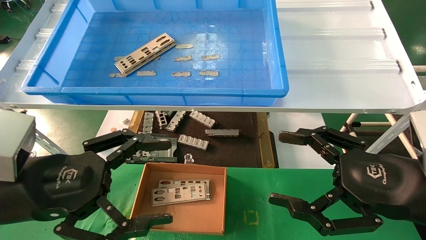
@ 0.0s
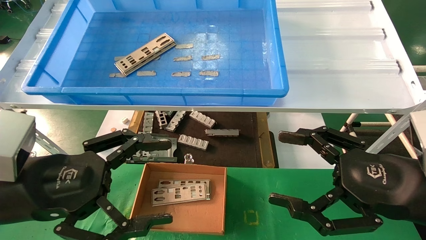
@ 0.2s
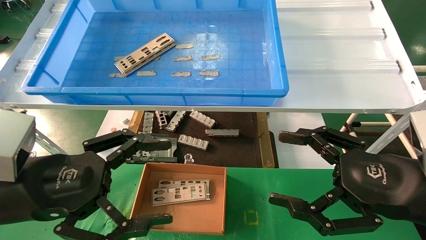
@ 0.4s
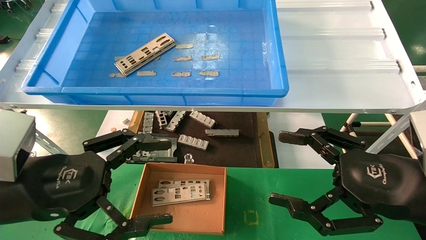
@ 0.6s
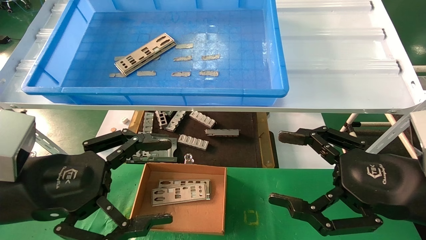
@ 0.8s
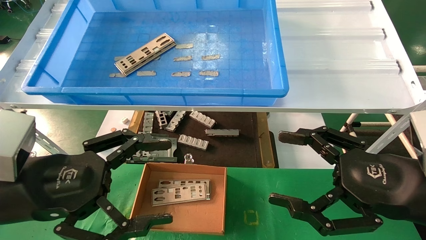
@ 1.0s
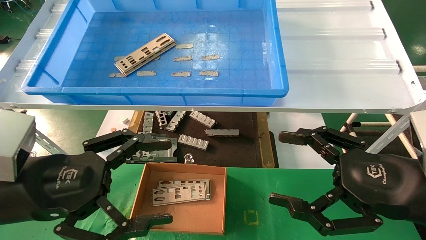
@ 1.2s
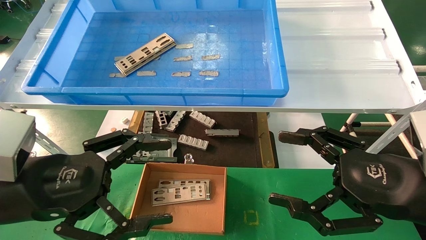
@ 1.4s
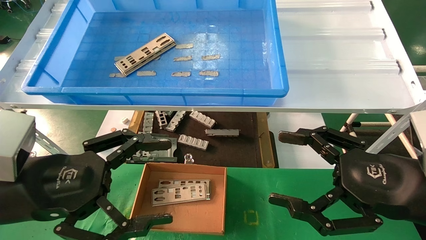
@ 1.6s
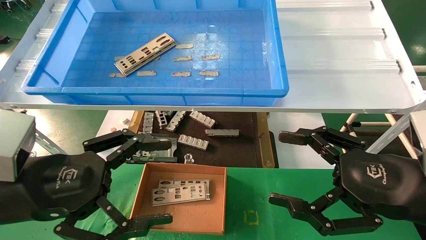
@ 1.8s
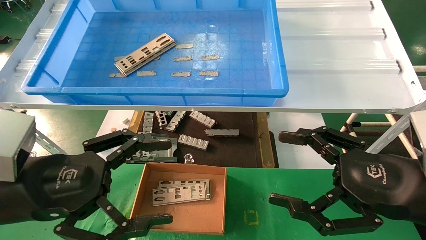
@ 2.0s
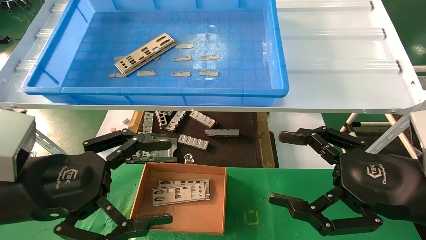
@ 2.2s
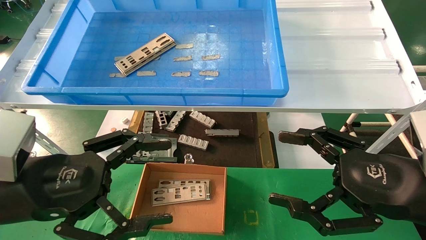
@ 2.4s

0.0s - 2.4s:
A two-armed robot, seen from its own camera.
Task of the whole recording: pick up the parts on the tray and put them in the cardboard box.
0.0s - 2.4s: Neither gripper changes place.
